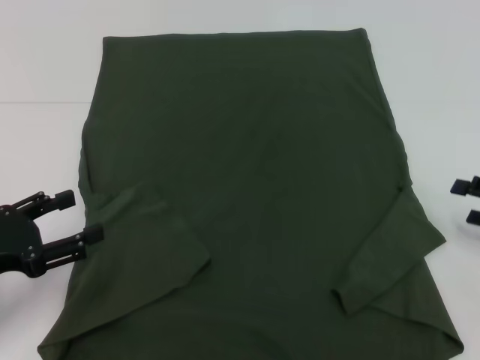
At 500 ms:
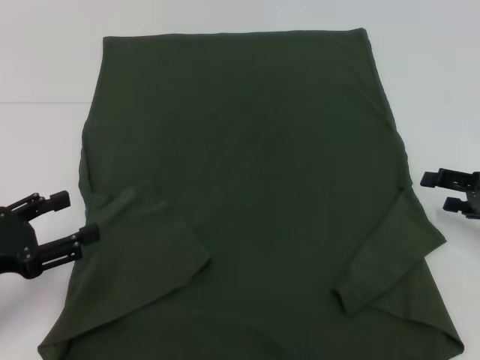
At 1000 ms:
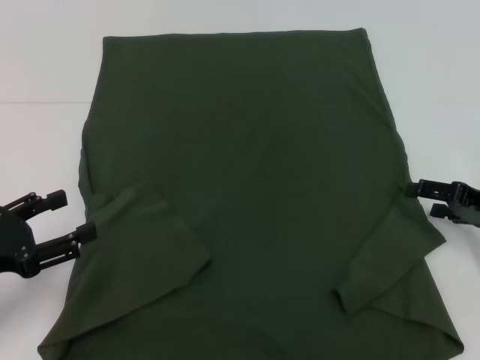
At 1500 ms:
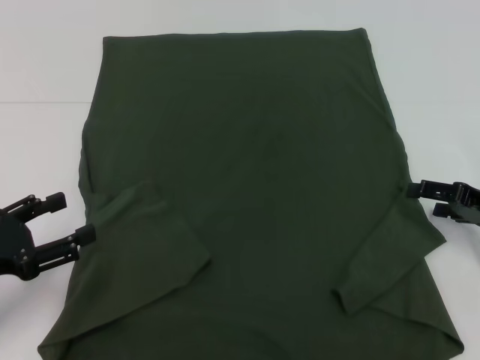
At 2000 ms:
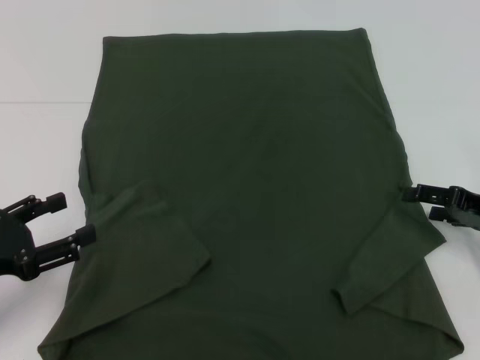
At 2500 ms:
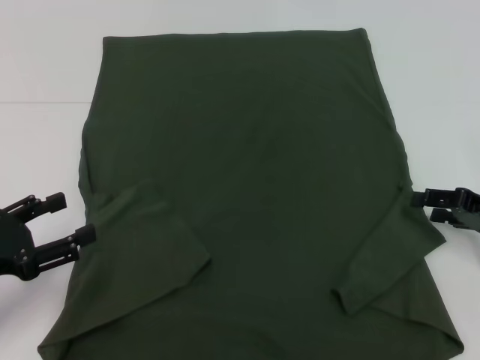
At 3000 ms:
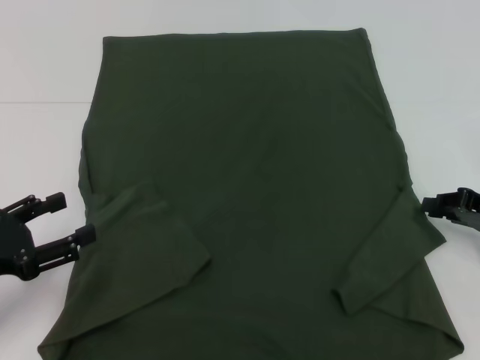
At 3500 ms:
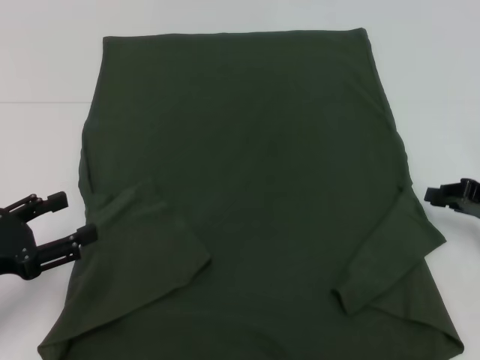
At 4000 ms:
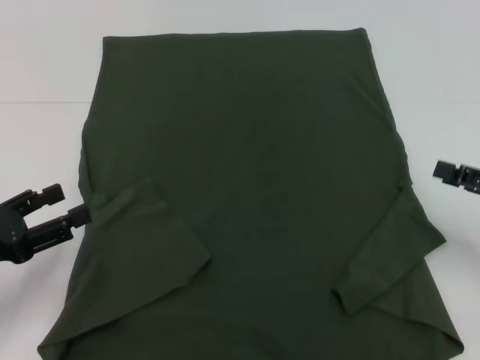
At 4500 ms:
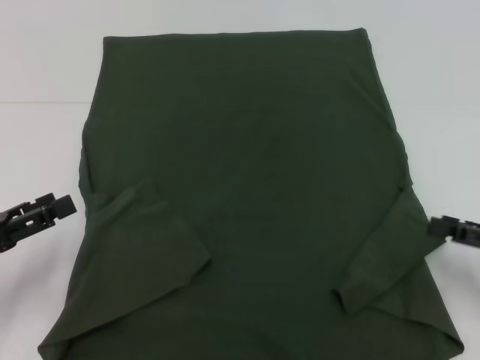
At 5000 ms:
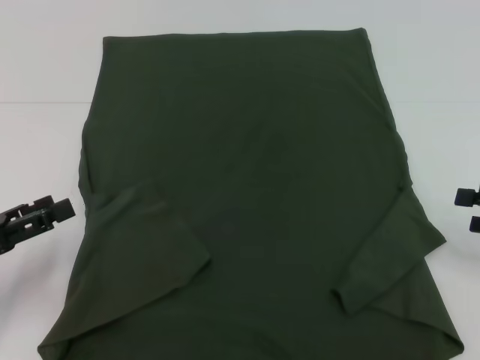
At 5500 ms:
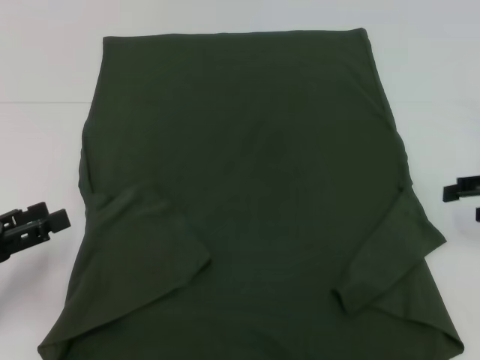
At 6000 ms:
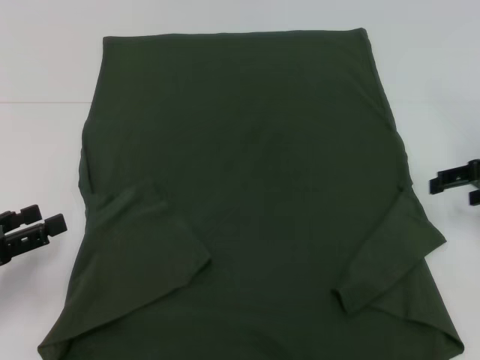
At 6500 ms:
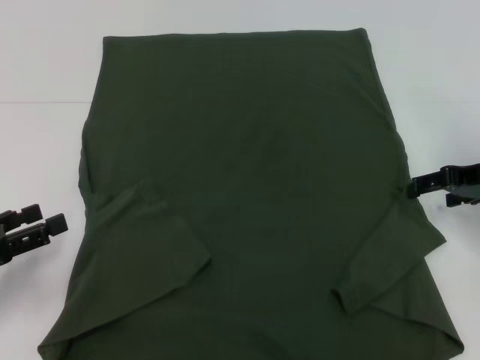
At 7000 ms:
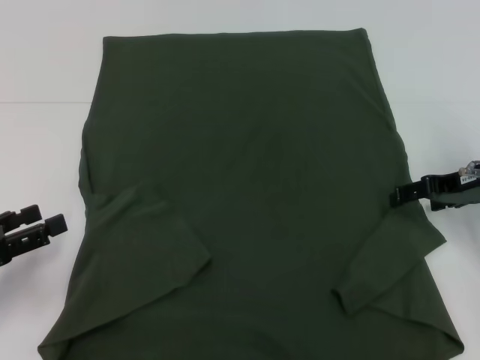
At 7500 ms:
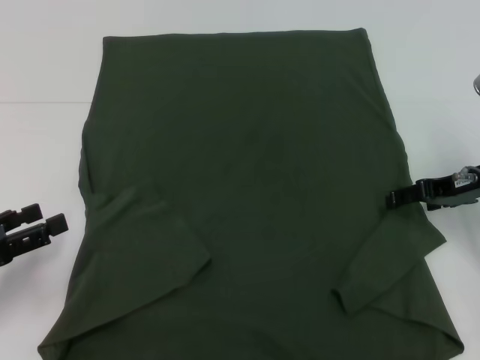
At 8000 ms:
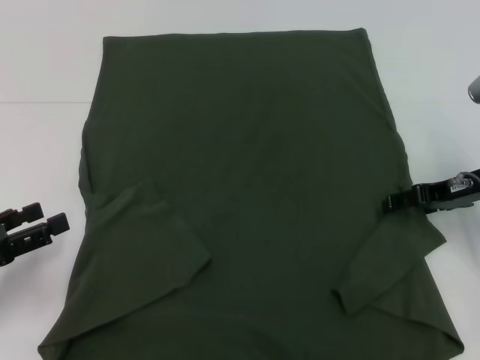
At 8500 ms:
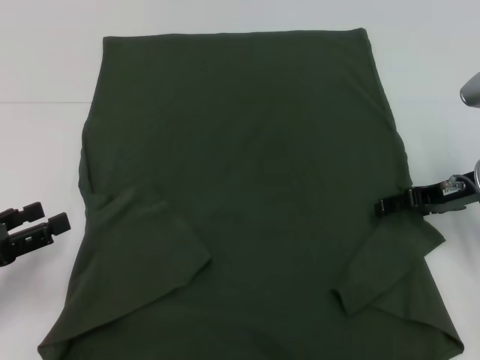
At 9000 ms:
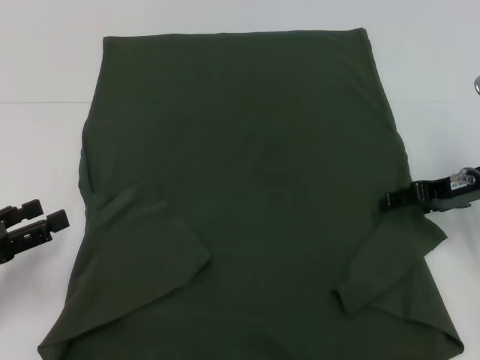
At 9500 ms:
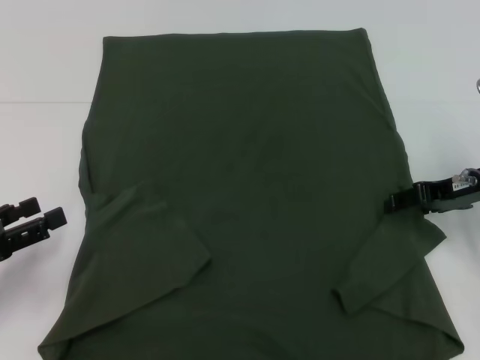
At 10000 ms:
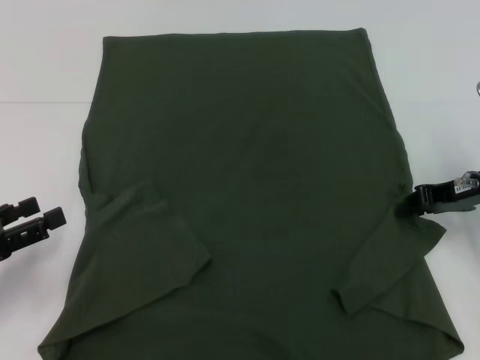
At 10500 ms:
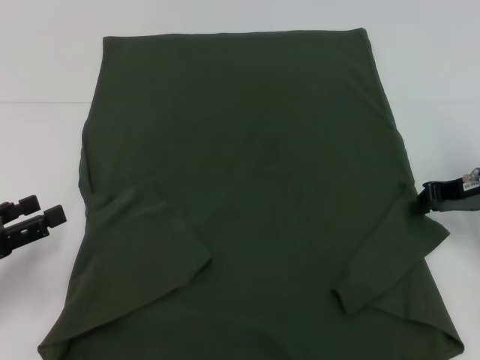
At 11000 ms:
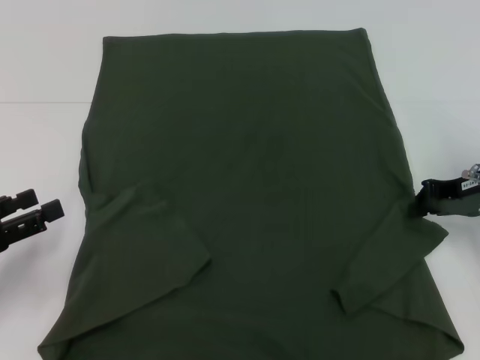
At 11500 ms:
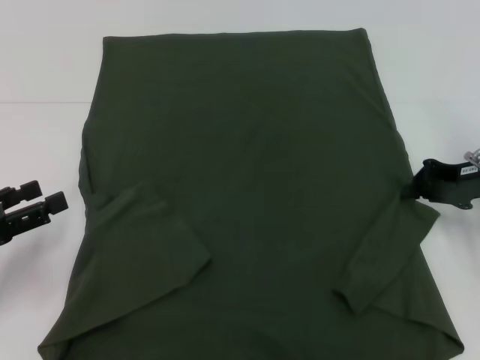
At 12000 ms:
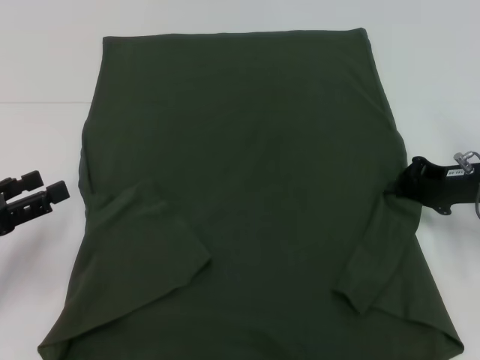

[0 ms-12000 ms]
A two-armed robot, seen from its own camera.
0 ms to 2000 ms: The right gripper ends up approximately 5 cm from where it was.
2000 ms to 4000 ms: The right gripper shifts by approximately 5 cm, and closes up.
4000 ms to 6000 ms: The right gripper travels forward by about 10 cm, and opens its fingers.
6000 ms to 8000 ms: The right gripper is displaced to the left by some 5 cm.
8000 ms to 10000 ms: The right gripper closes its fingers.
10000 ms to 12000 ms: The right gripper closes.

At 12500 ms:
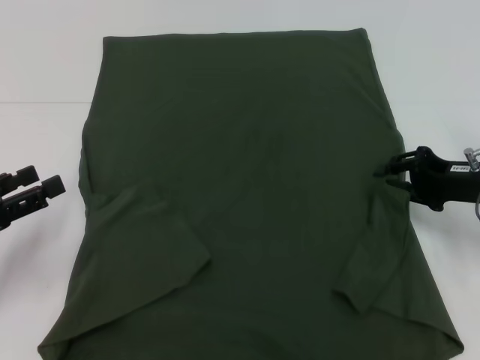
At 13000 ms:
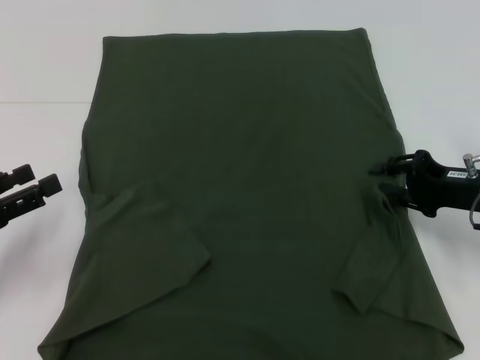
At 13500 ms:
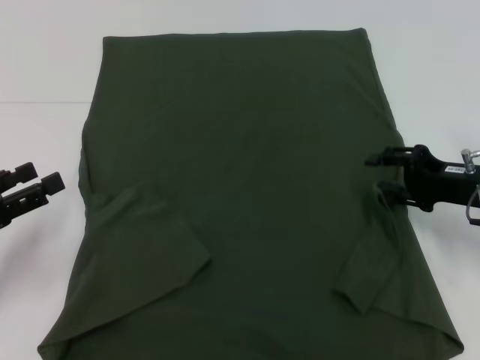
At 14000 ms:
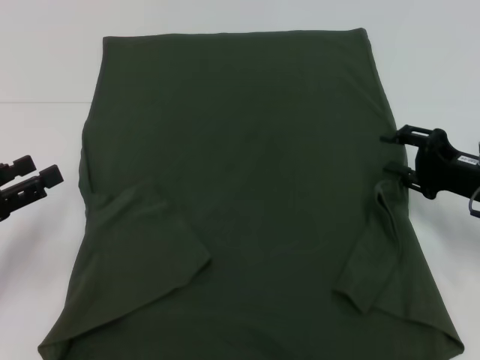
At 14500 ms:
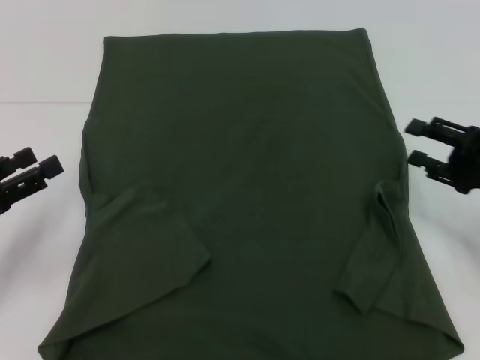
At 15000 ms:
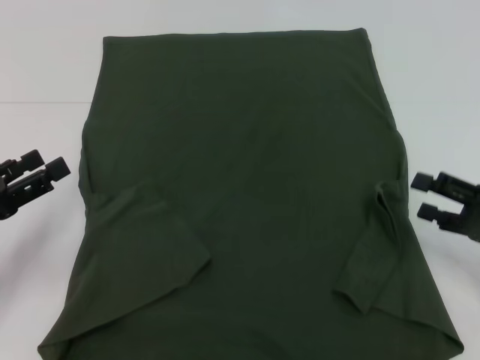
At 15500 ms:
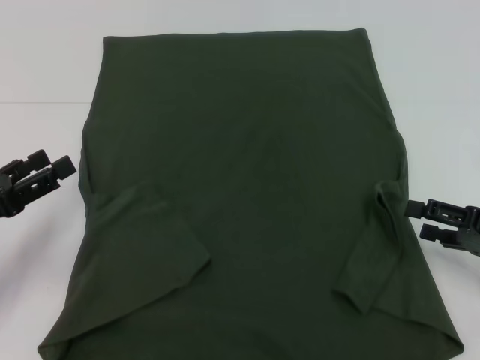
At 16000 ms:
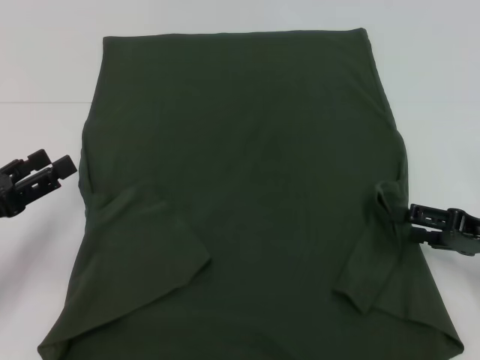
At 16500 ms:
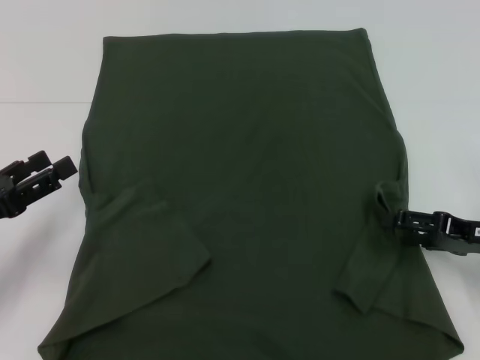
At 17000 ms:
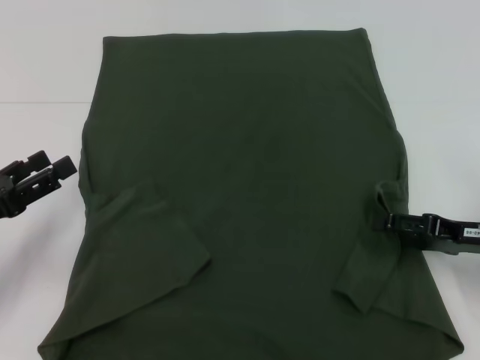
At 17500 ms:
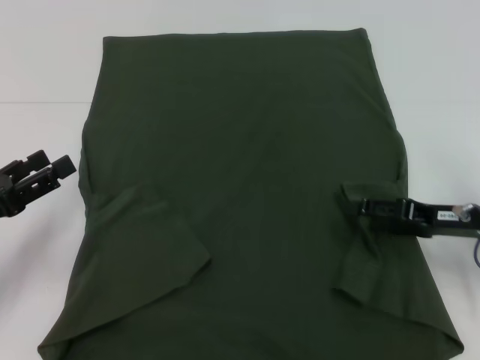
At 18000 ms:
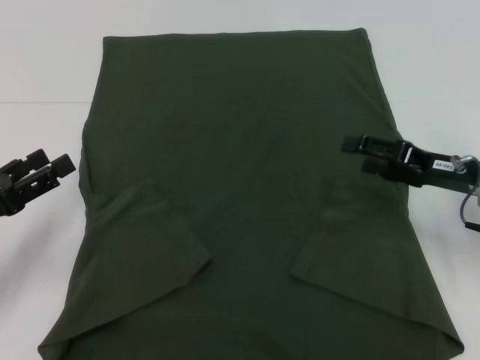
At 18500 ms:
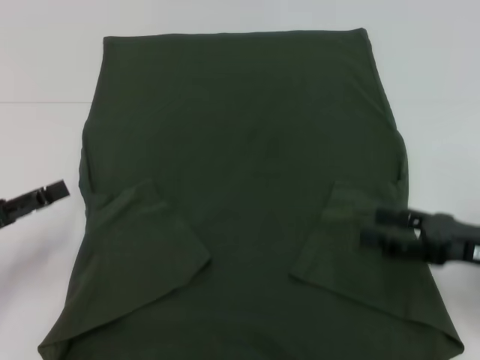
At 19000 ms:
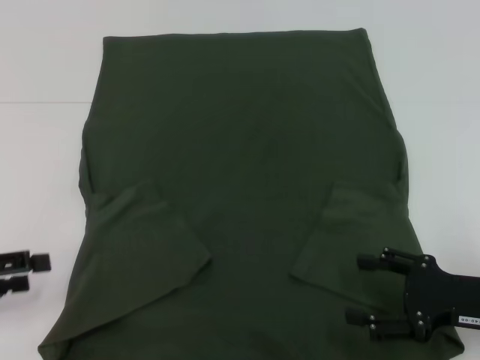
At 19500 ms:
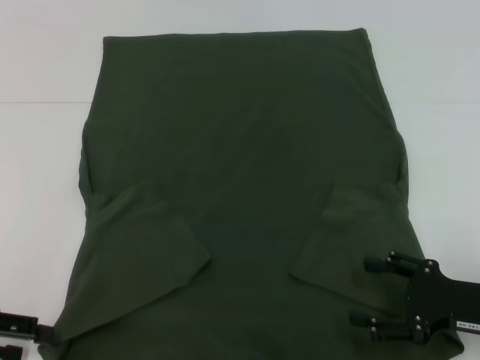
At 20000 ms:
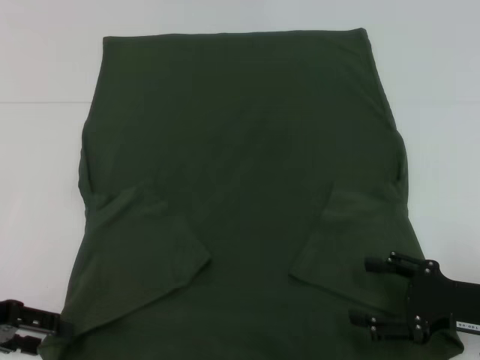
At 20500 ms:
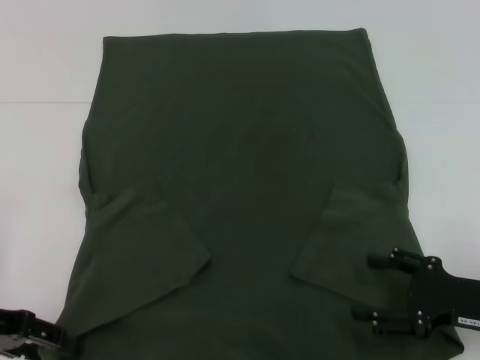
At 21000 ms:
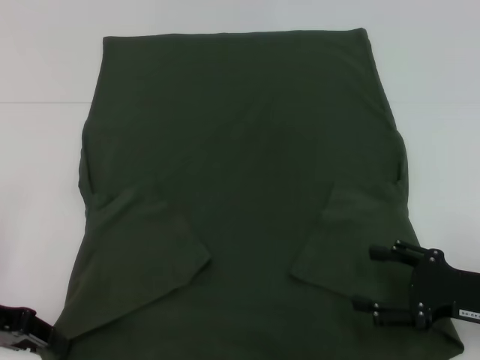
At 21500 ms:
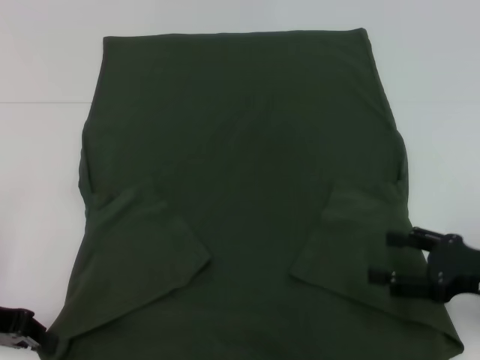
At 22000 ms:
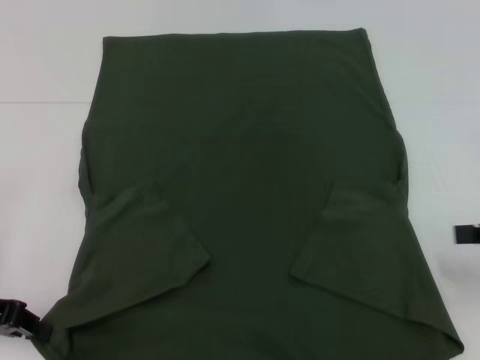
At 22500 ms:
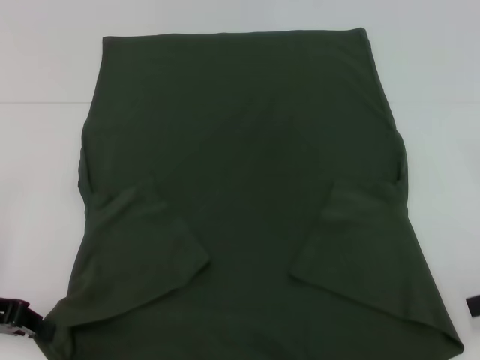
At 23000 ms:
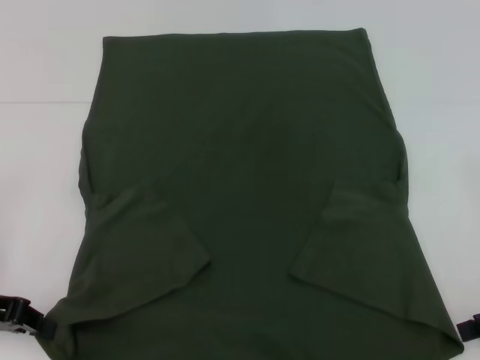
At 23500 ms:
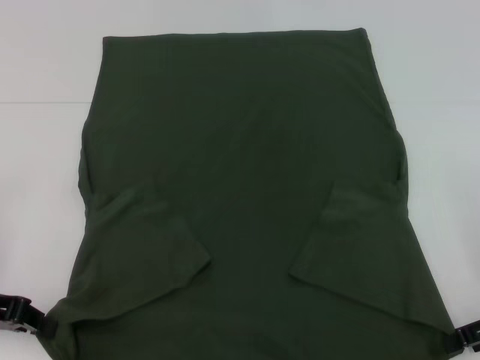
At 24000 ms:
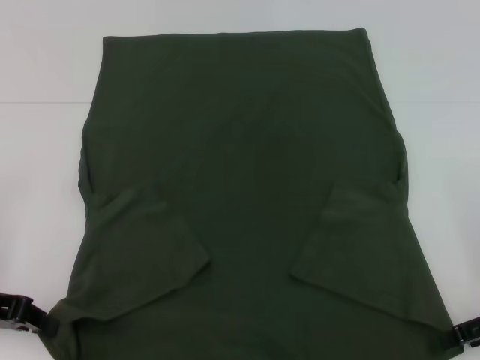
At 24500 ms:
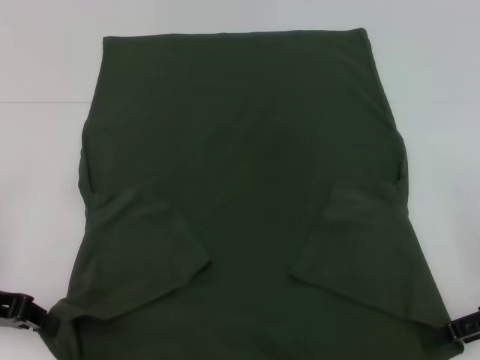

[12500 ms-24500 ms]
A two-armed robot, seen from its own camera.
Step, 14500 ms to 21000 ms: Grab the bottom left corner with your left hand.
12500 ms to 14500 ms: The right gripper opens.
18500 ms to 20500 ms: The right gripper shifts by some 5 cm.
20500 ms to 22500 ms: The left gripper closes its fingers; the right gripper shifts some 15 cm upward and to the right.

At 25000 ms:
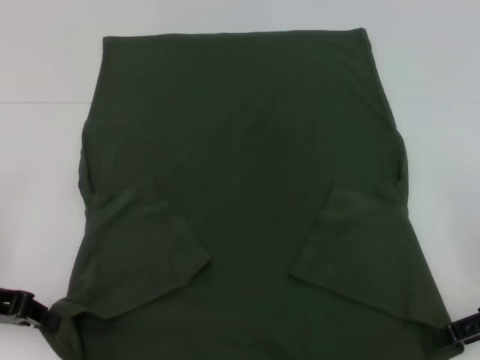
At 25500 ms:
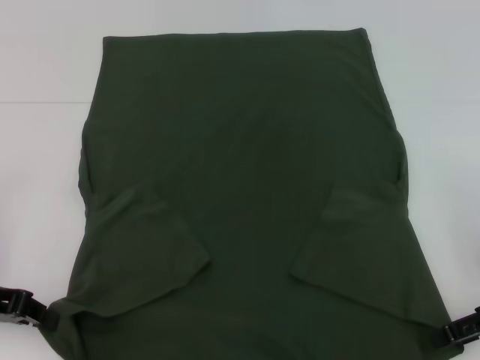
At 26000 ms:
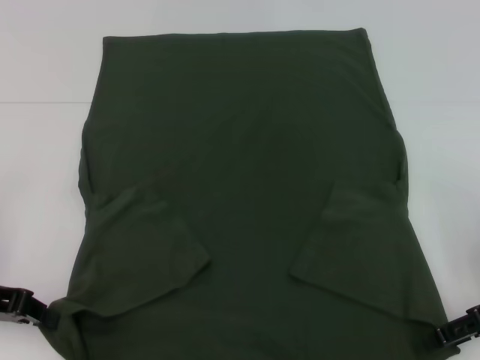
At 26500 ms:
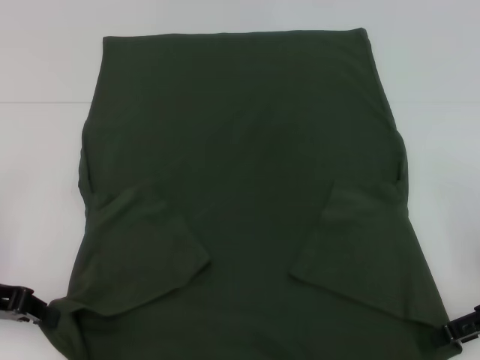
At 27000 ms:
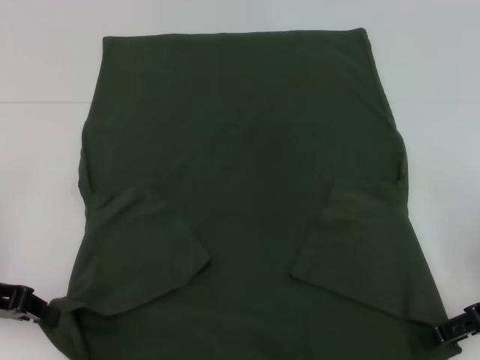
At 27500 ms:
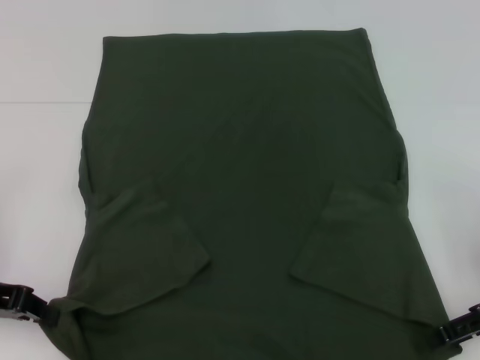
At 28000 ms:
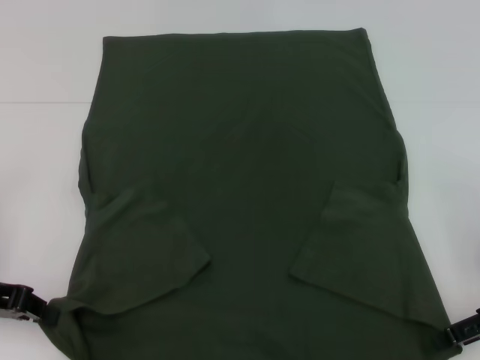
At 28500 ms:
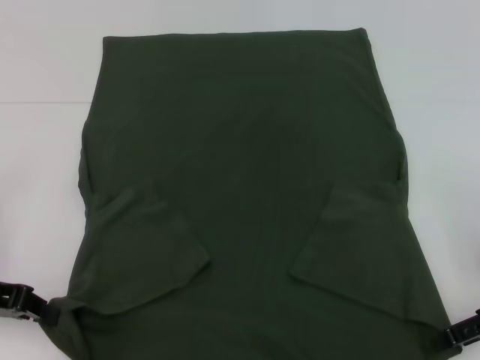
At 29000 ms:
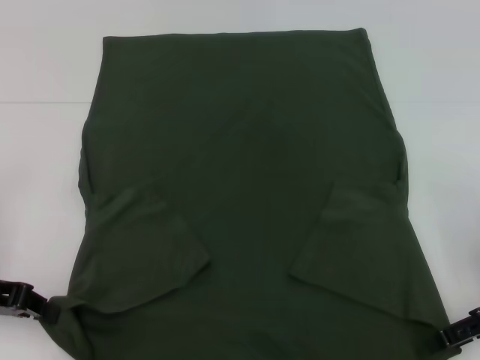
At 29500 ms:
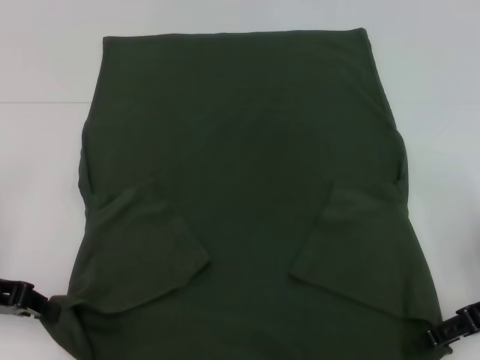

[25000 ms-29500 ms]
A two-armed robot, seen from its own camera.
25000 ms to 27000 ms: The grippers make only small movements.
27000 ms to 29500 ms: Both grippers stay put.
